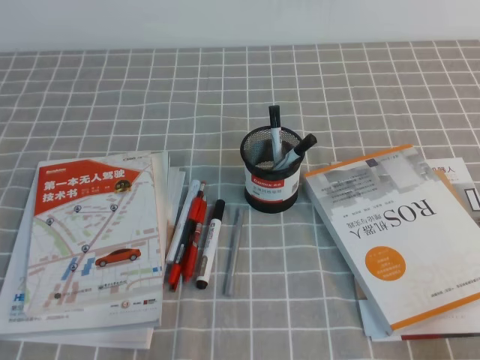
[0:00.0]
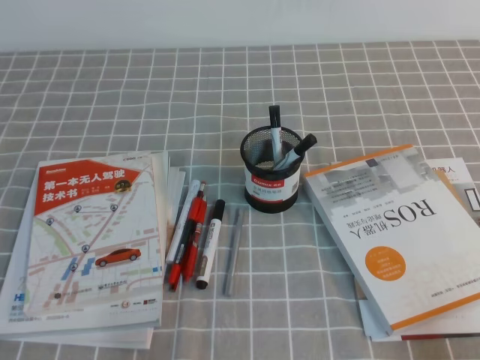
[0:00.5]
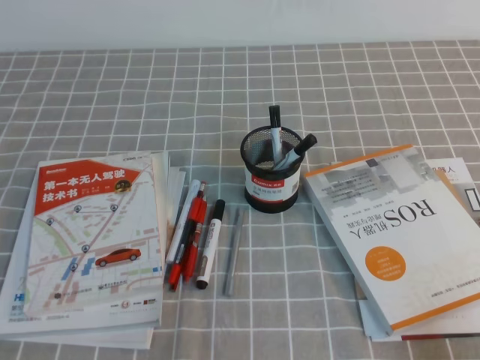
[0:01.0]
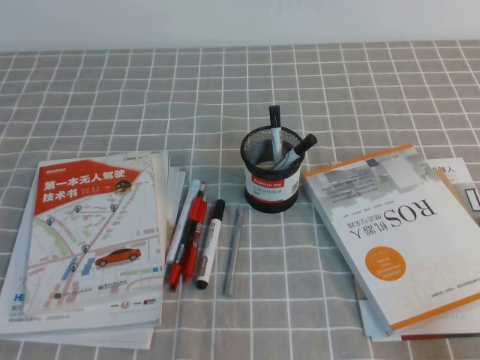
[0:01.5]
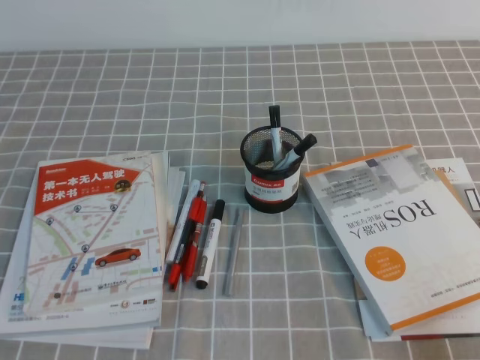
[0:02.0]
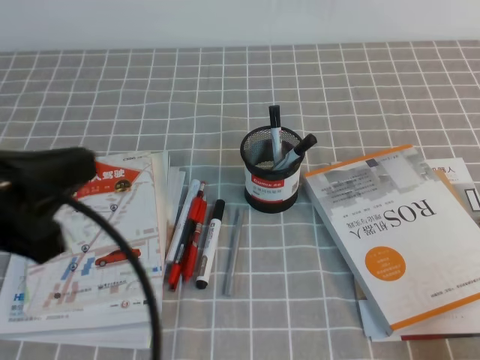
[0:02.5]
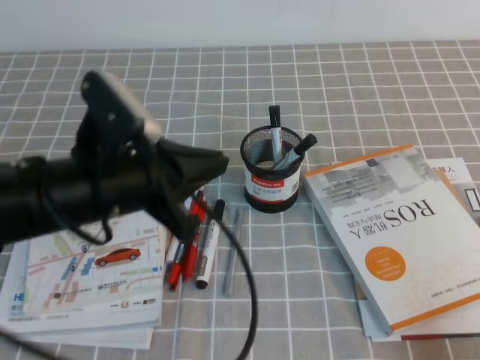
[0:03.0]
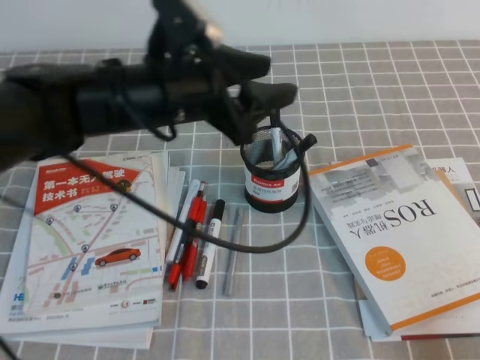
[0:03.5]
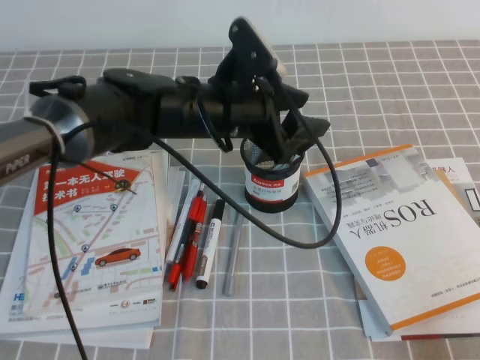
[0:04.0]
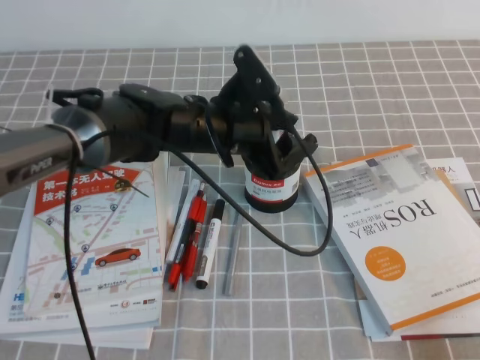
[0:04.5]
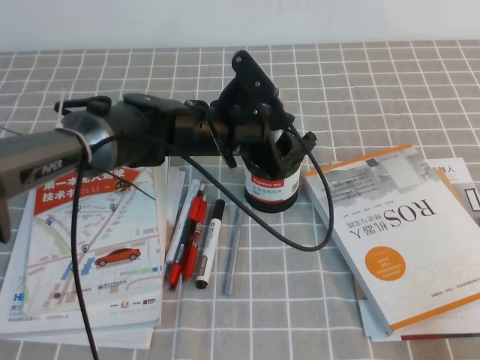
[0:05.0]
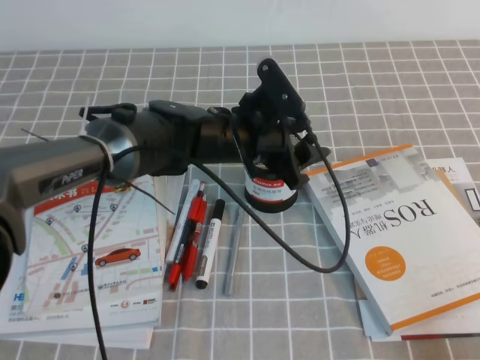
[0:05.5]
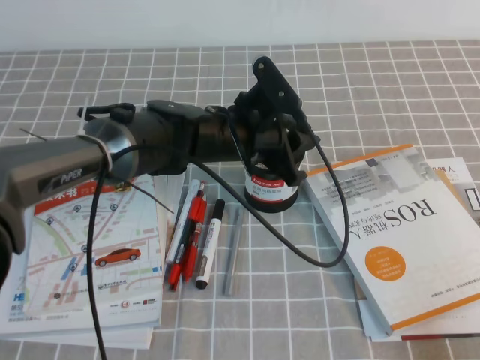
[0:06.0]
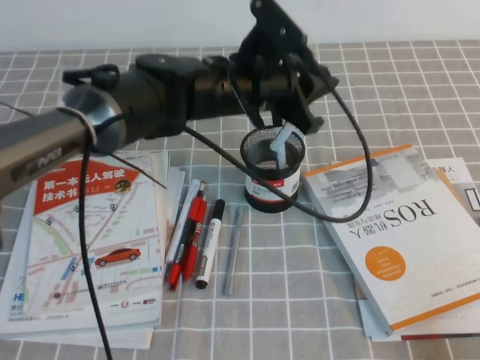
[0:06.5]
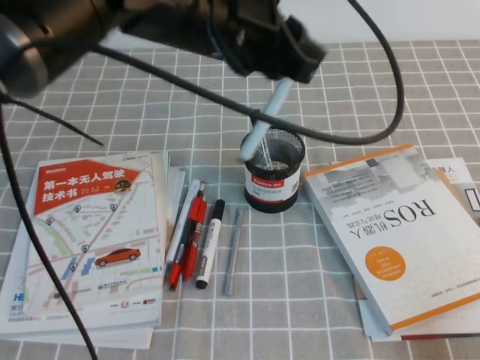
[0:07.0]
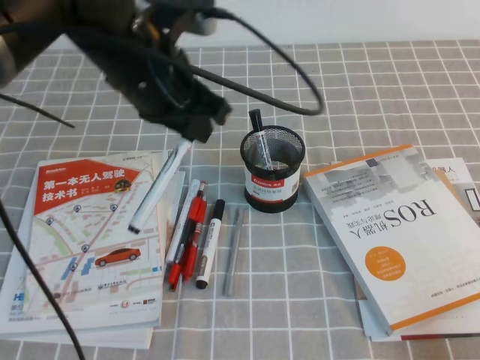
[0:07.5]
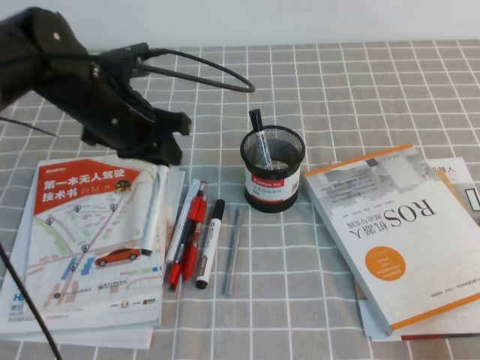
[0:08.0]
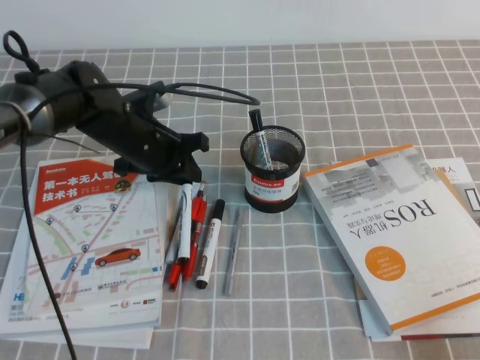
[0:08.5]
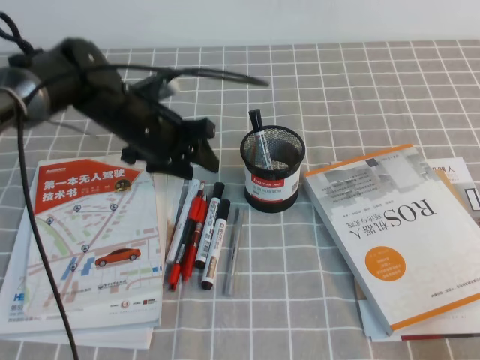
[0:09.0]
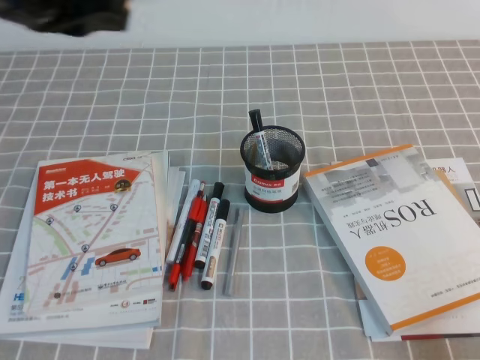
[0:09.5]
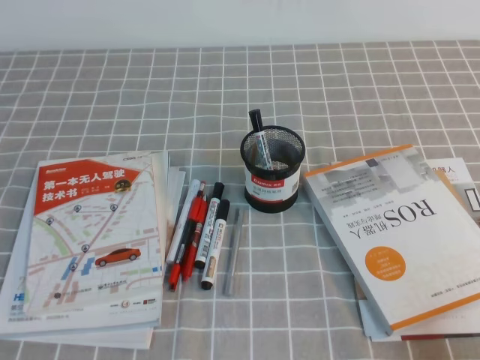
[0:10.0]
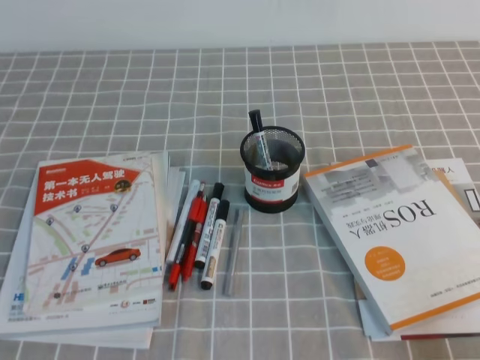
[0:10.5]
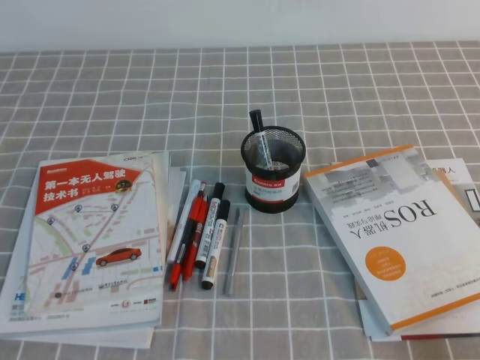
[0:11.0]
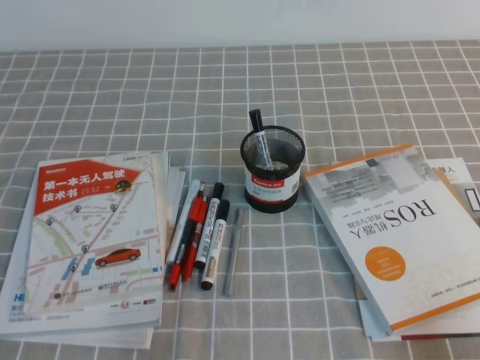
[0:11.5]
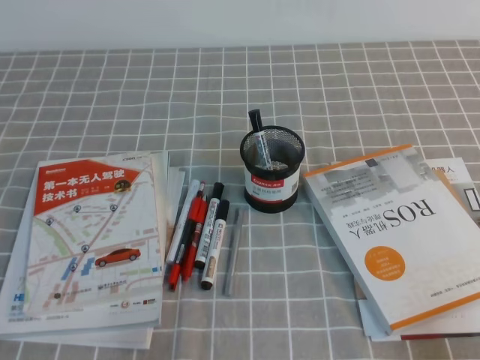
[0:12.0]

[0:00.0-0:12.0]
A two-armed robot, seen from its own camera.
Step, 0:00.0 to 0:12.0: Pick up the pen from the pen holder.
0:02.0 to 0:04.0: The left gripper travels forward and to the right by about 40 cm, and opens up.
0:04.0 to 0:06.0: The left gripper shifts by some 5 cm, and closes its fingers.
0:06.0 to 0:08.0: The left gripper is displaced to the left by some 15 cm, and travels upward and back again, approximately 15 cm each way.
0:08.0 to 0:10.0: The left gripper heads backward, covering approximately 30 cm, and opens, then closes once more.
0:10.0 to 0:12.0: The left gripper is displaced downward by some 20 cm.
